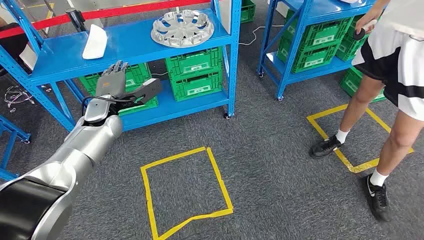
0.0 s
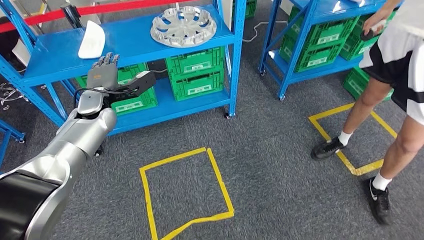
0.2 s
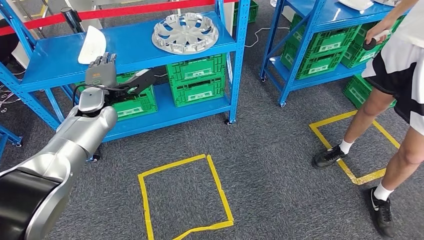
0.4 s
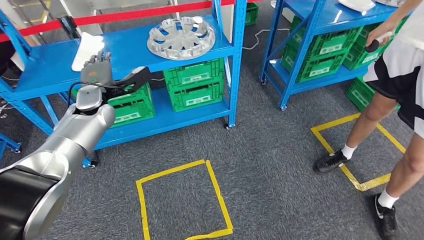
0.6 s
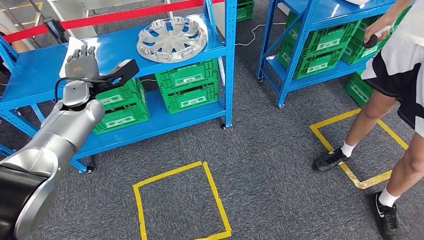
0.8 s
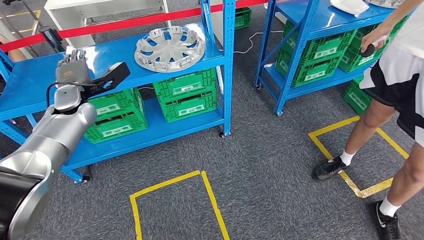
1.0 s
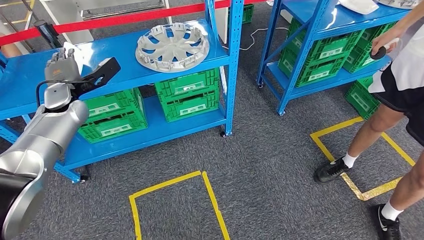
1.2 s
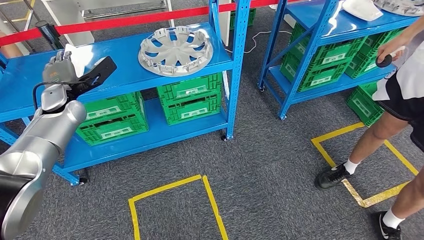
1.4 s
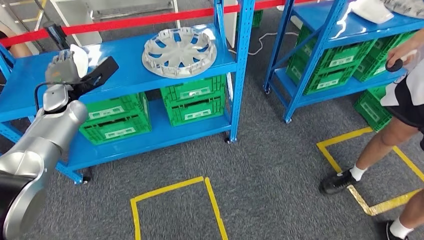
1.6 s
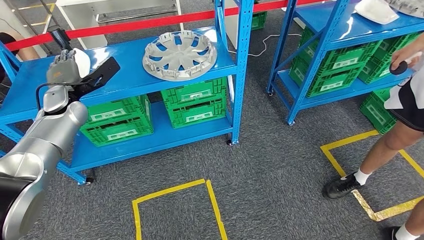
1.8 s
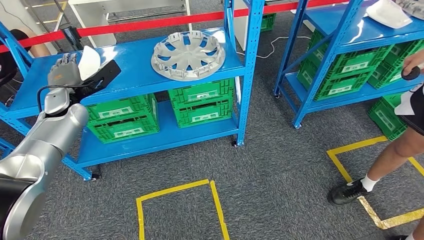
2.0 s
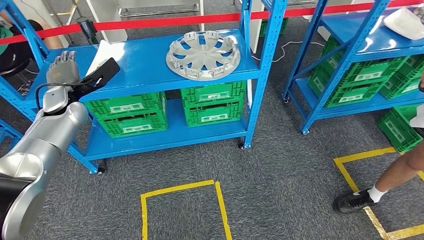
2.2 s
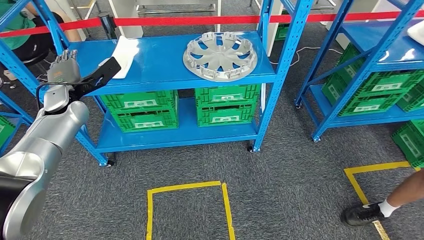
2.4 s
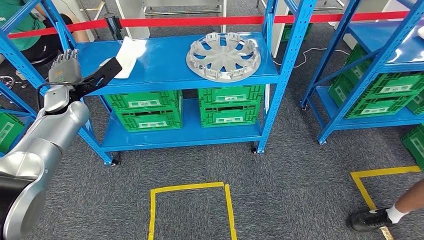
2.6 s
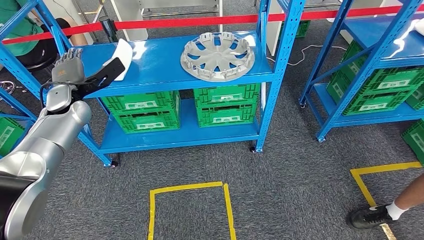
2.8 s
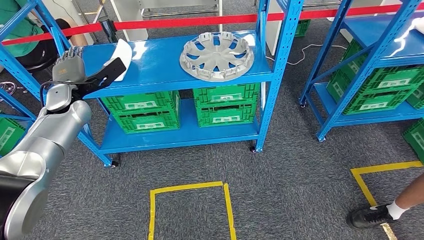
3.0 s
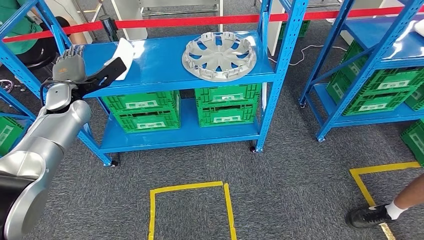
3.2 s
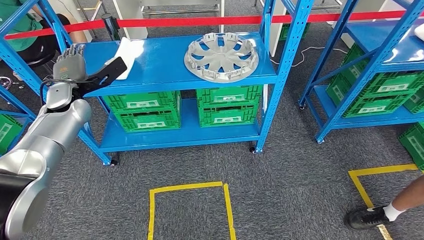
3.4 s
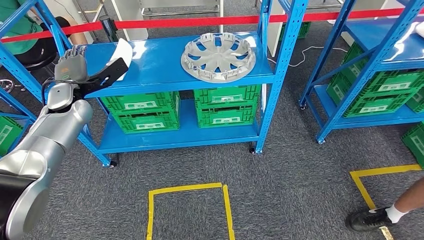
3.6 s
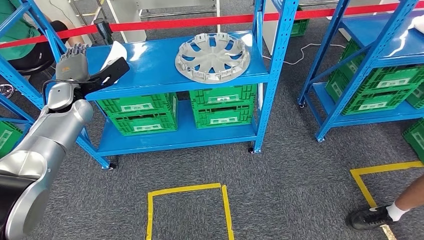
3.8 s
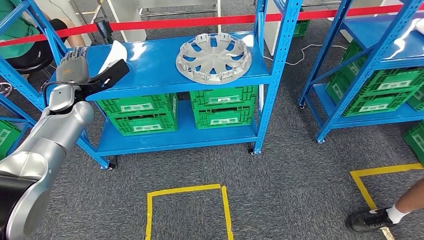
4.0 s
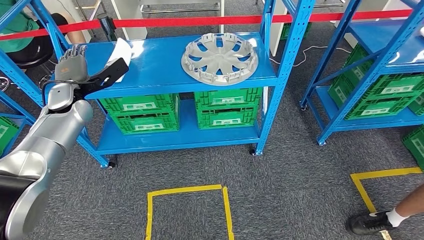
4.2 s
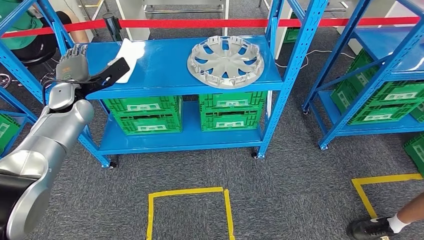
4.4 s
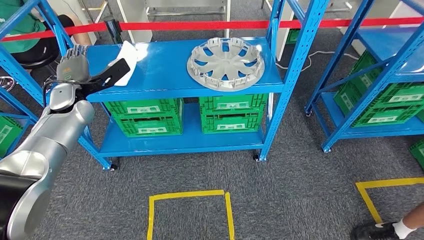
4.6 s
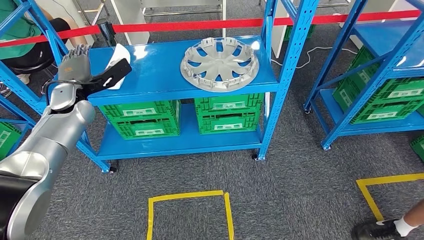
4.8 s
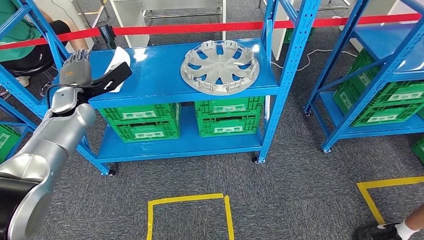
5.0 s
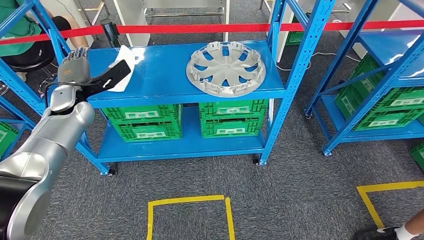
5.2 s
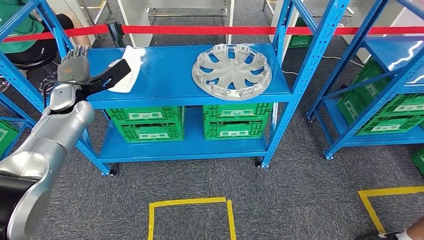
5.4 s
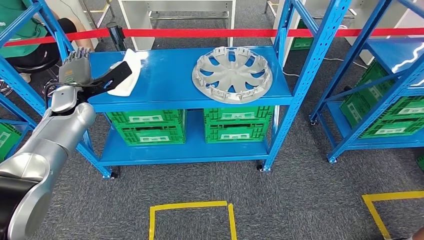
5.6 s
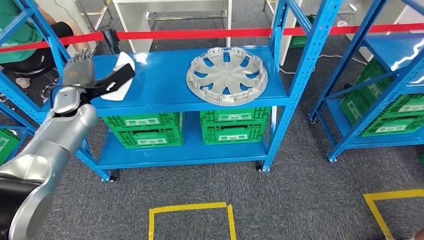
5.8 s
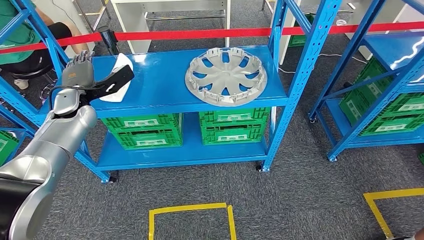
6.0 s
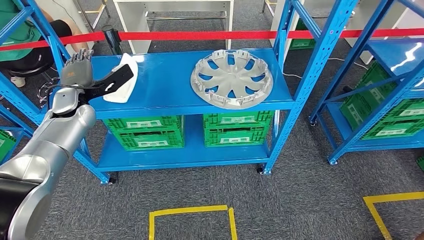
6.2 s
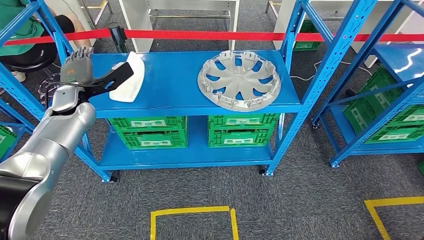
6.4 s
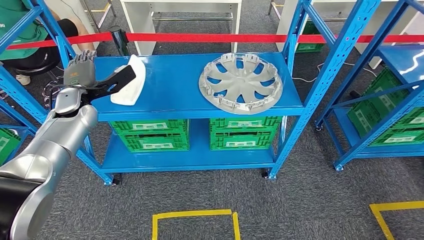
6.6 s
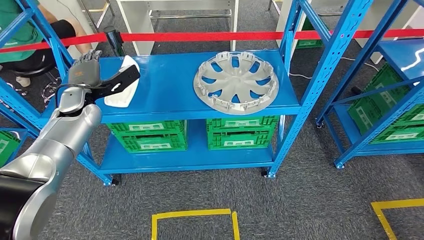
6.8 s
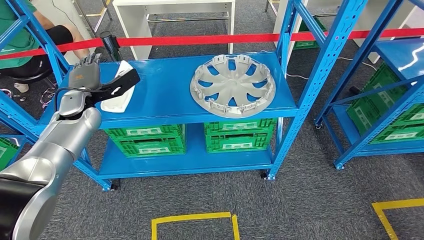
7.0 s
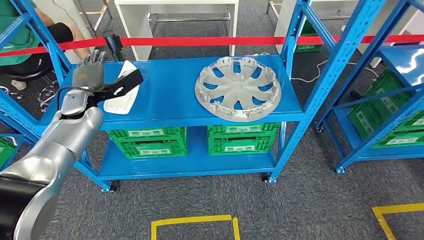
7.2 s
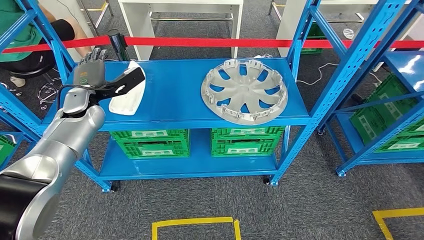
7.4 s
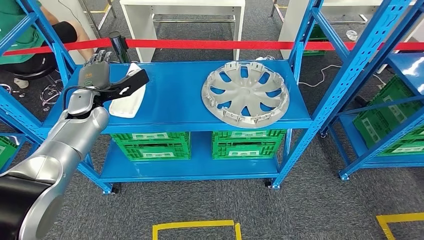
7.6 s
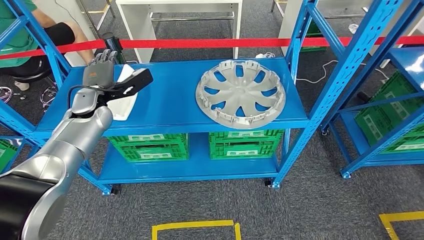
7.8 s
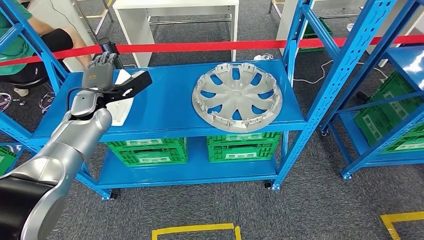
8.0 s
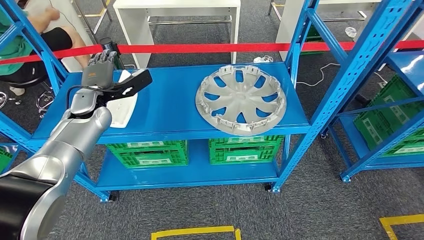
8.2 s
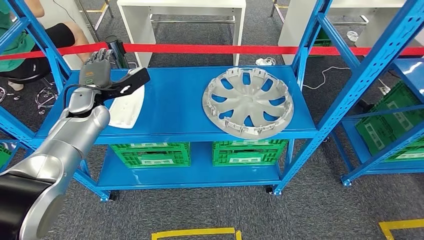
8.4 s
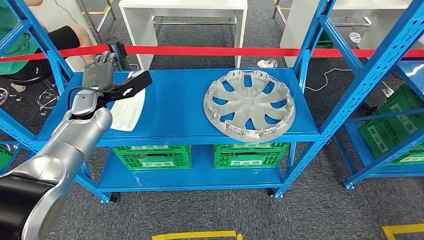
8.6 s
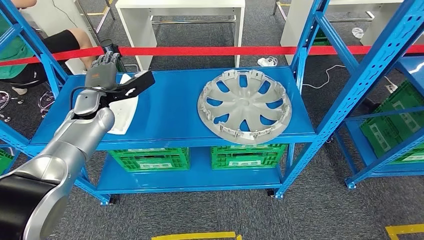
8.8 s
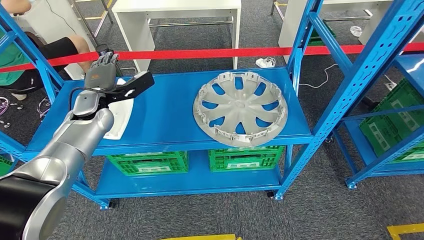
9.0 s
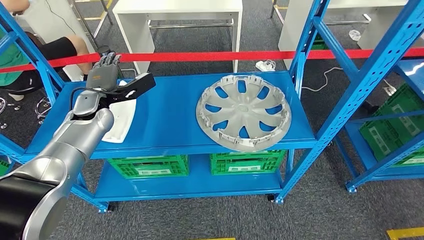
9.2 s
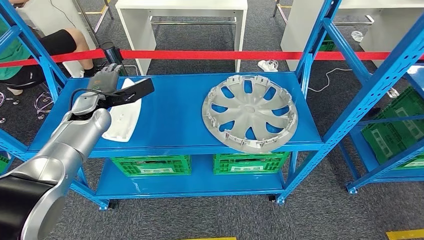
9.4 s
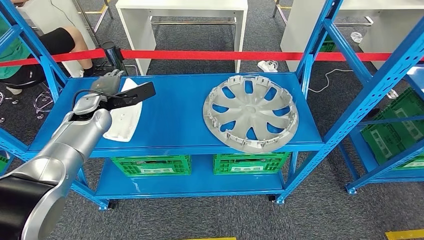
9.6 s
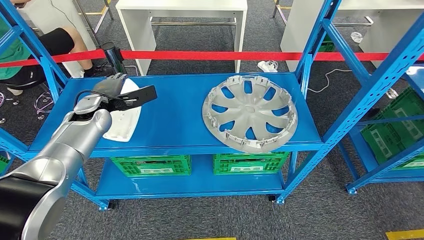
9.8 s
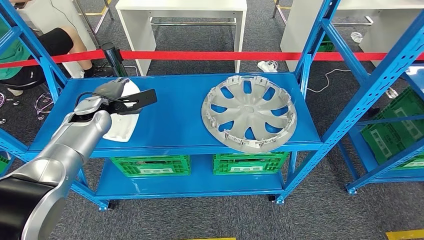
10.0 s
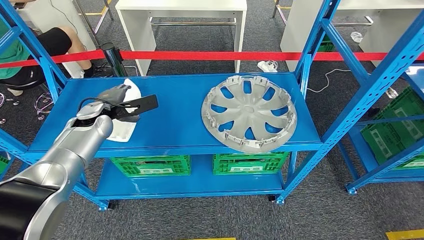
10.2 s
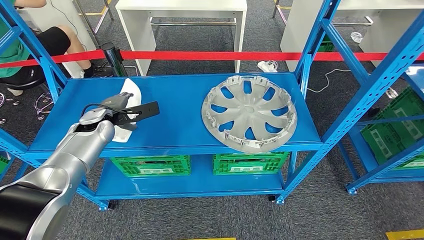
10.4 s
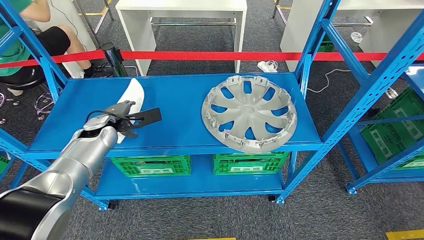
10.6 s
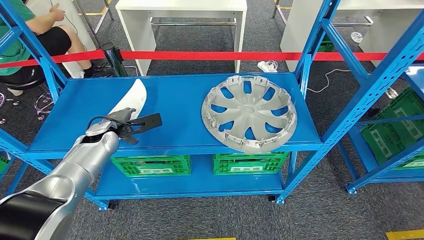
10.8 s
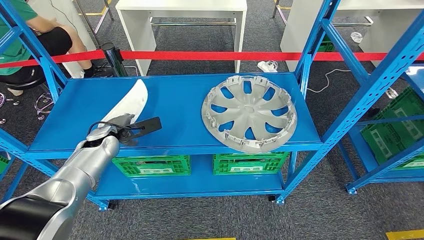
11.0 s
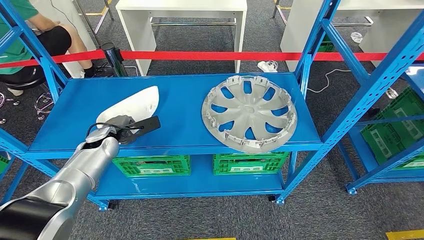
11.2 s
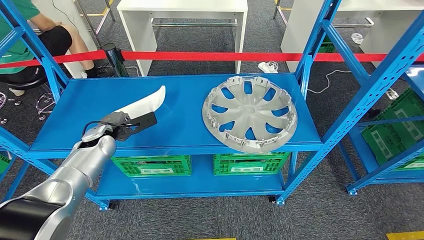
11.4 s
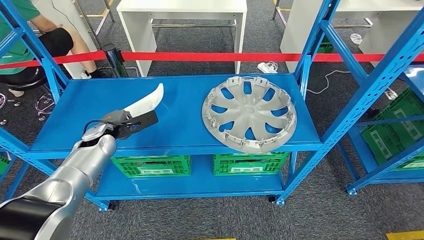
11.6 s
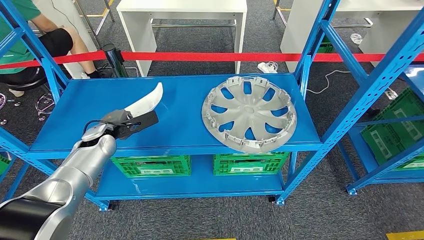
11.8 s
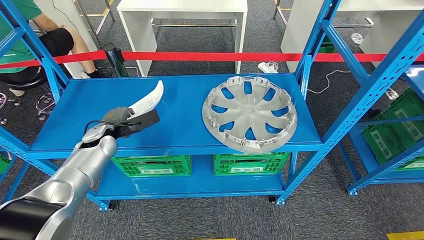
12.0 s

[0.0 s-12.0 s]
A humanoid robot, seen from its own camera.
10.4 to 12.0 s: The left hand shifts by about 5 cm.

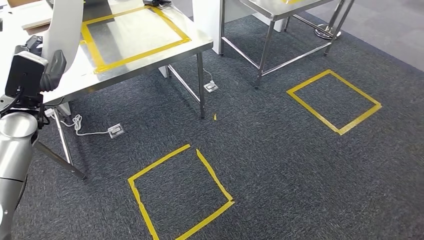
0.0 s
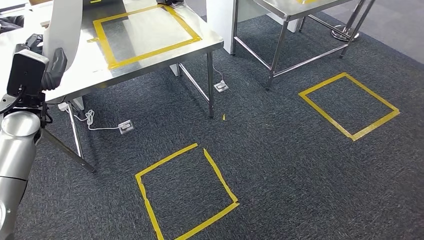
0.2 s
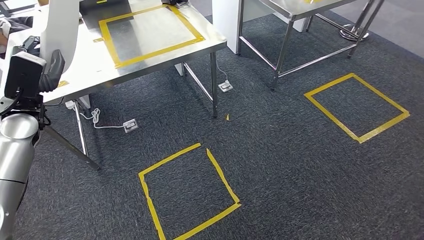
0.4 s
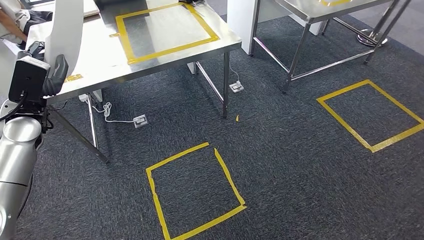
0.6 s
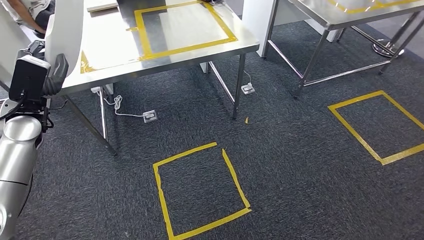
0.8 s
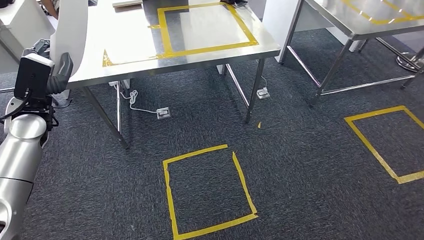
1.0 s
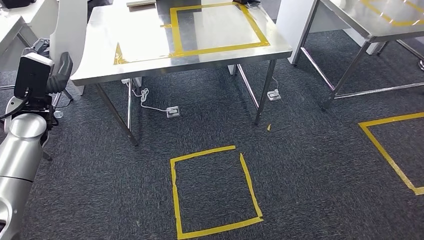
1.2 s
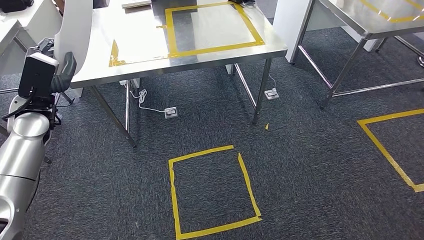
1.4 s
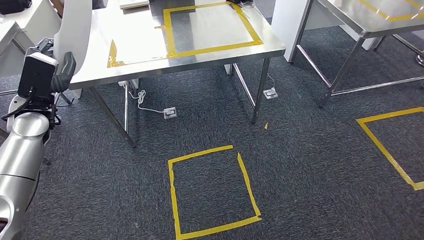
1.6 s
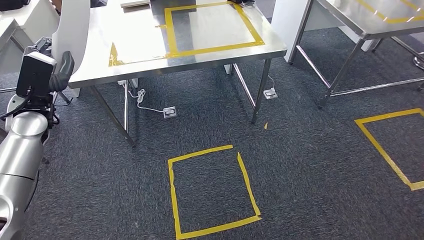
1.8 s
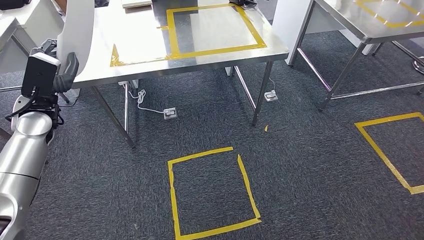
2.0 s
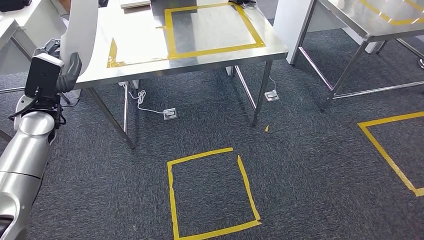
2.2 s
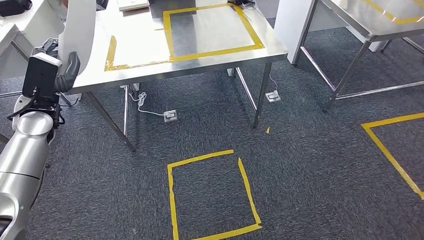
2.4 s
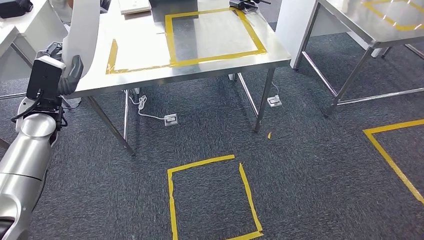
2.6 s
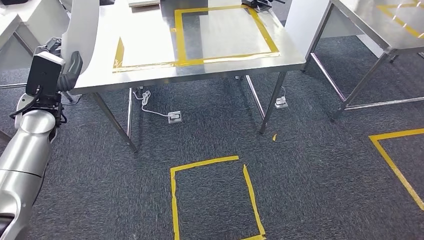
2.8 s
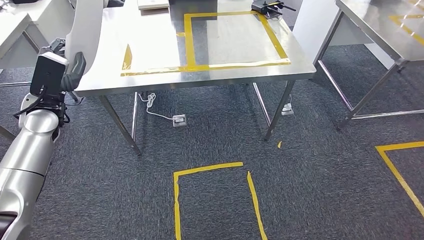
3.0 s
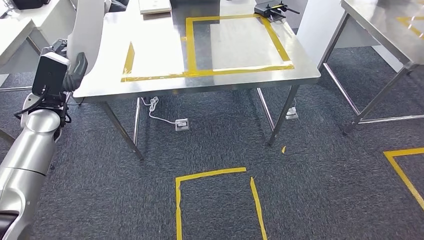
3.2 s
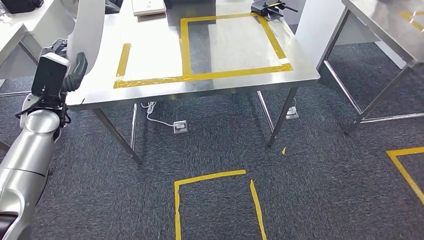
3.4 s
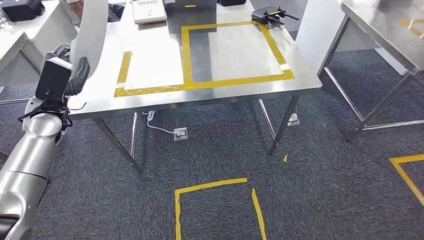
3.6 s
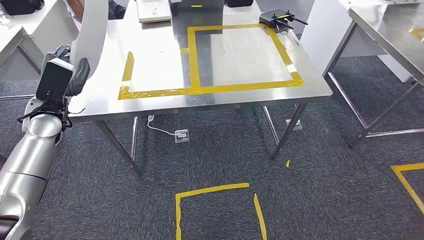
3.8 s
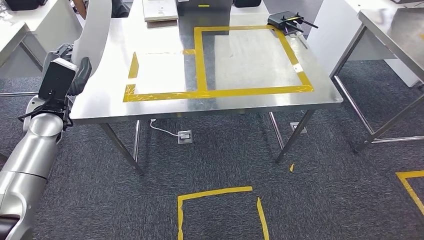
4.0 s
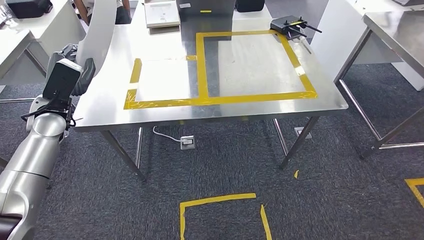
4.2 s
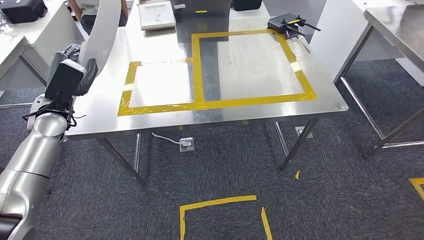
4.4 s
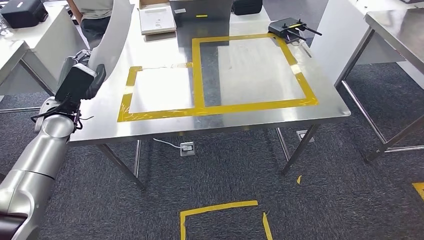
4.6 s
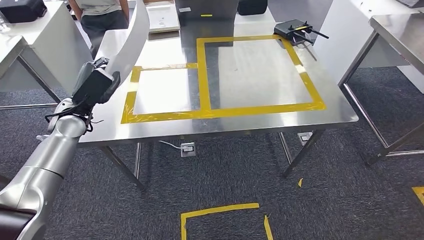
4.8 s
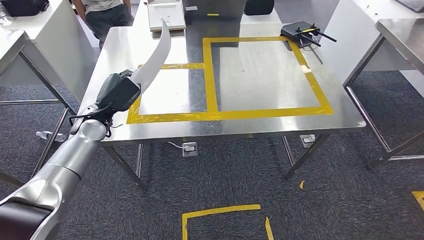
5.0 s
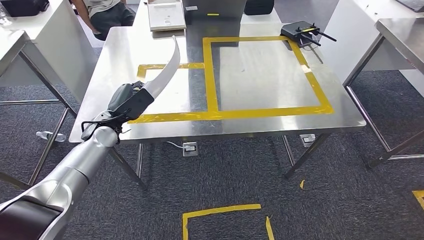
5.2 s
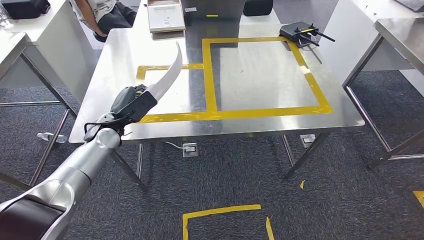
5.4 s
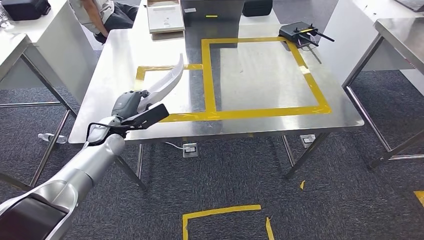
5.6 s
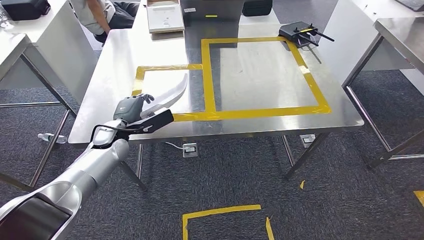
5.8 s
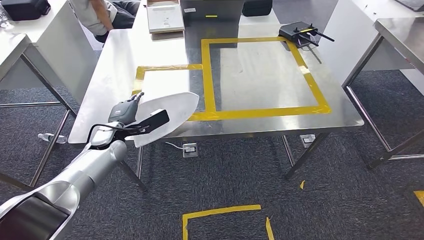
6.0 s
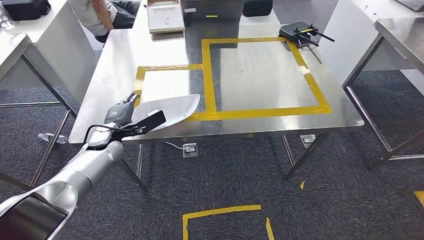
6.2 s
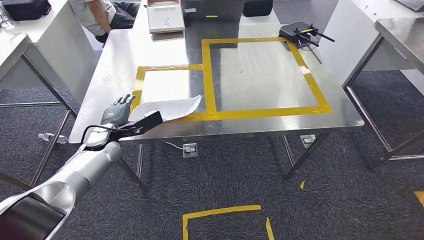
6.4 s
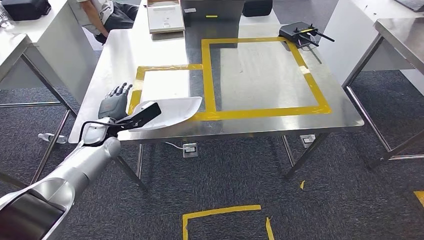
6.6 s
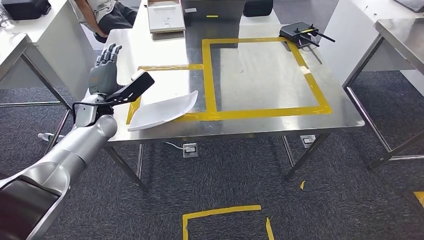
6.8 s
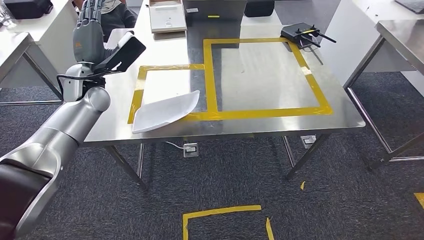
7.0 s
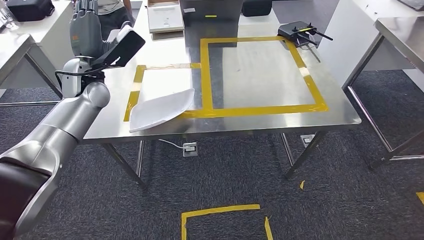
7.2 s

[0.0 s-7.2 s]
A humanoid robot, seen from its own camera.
Step, 0.0 to 4.0 s: Move the small parts to the workbench.
Step, 4.4 to 7.0 s: Insert the small parts into the corresponding slots on the workbench.
